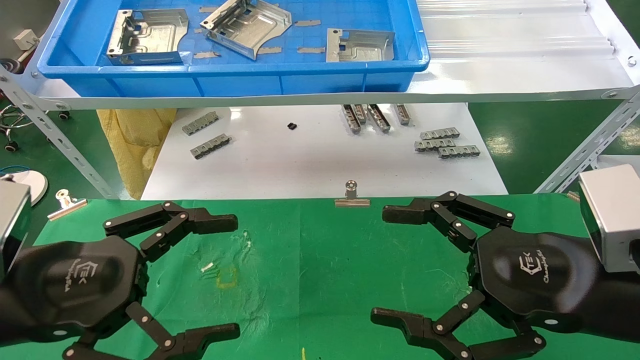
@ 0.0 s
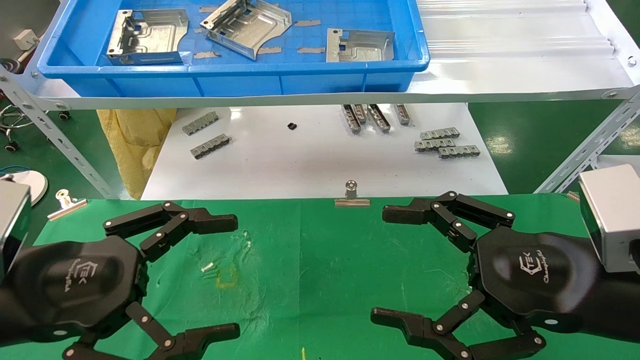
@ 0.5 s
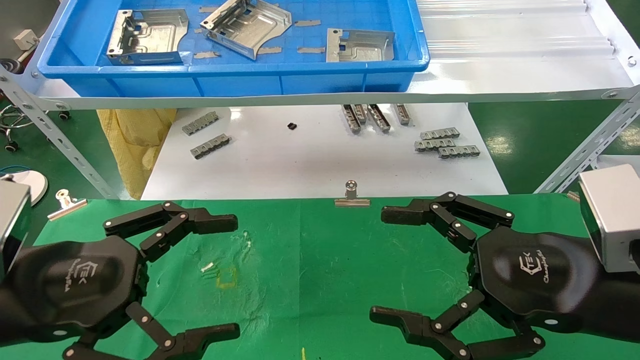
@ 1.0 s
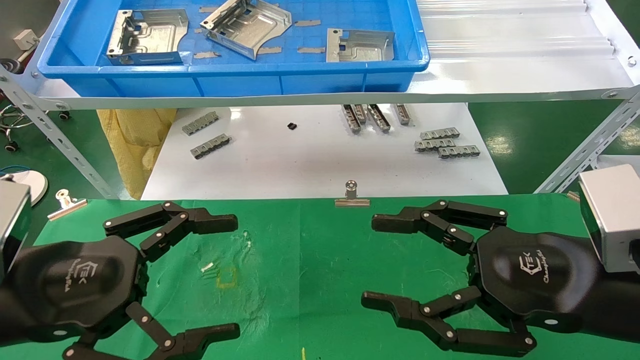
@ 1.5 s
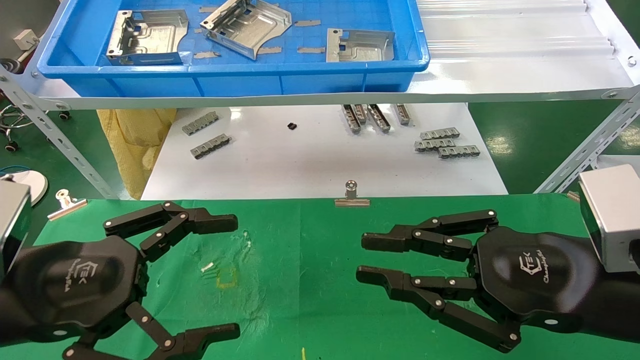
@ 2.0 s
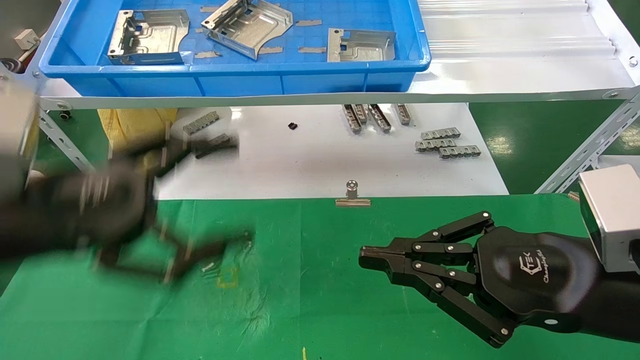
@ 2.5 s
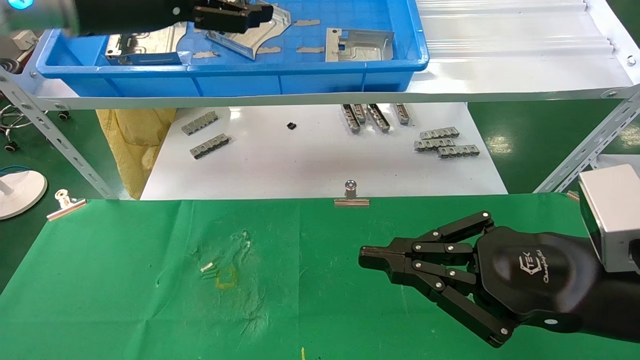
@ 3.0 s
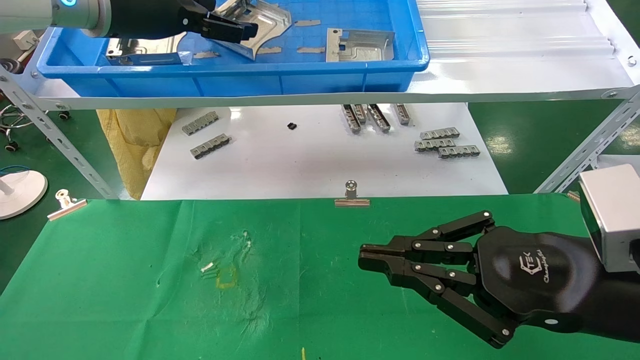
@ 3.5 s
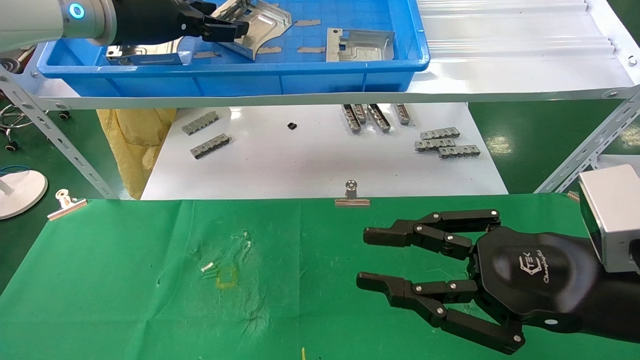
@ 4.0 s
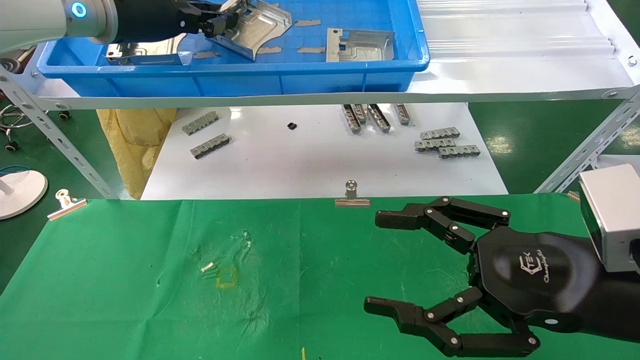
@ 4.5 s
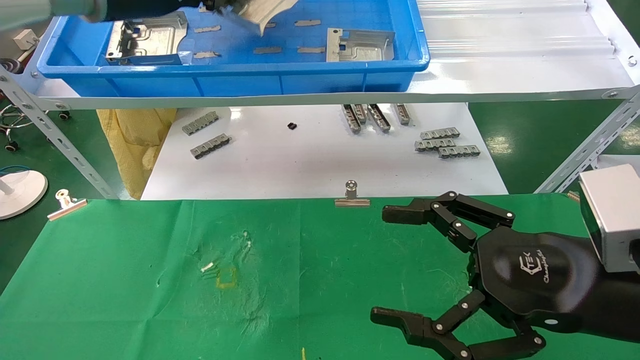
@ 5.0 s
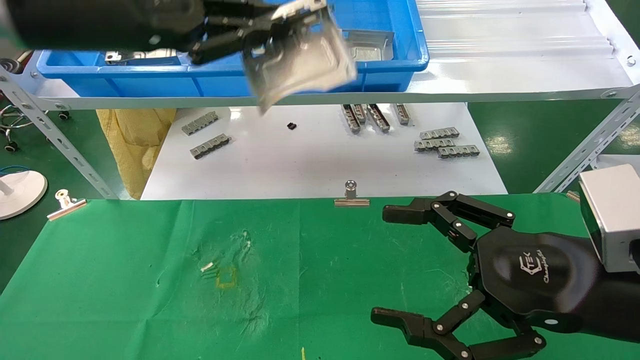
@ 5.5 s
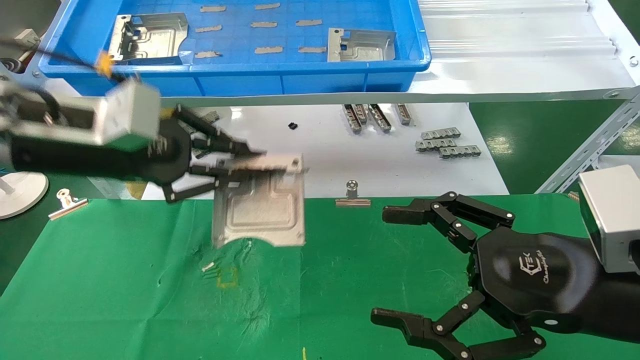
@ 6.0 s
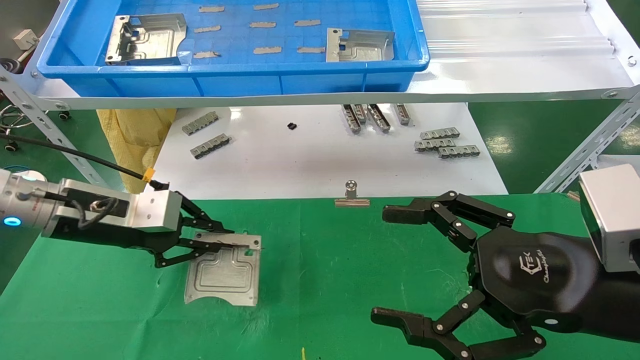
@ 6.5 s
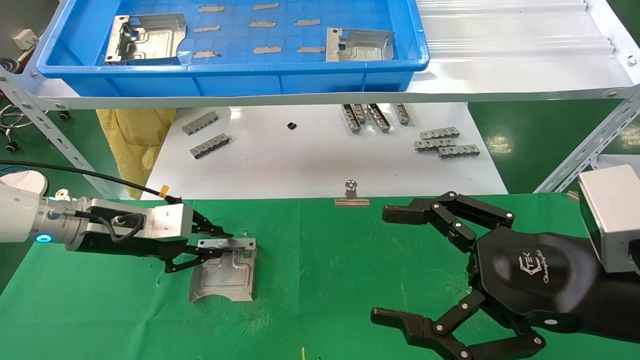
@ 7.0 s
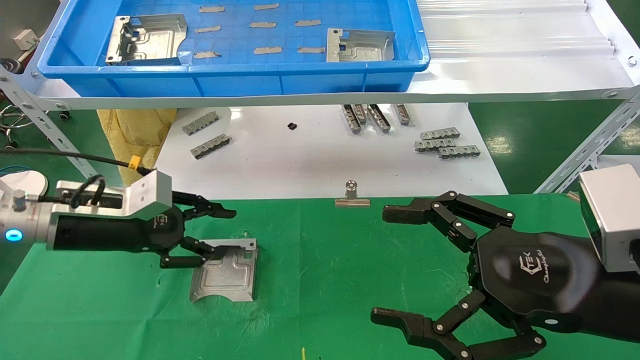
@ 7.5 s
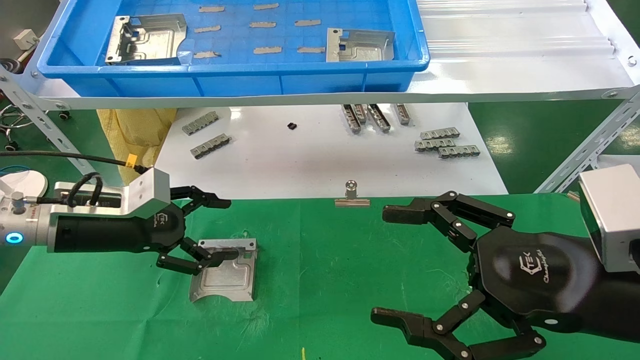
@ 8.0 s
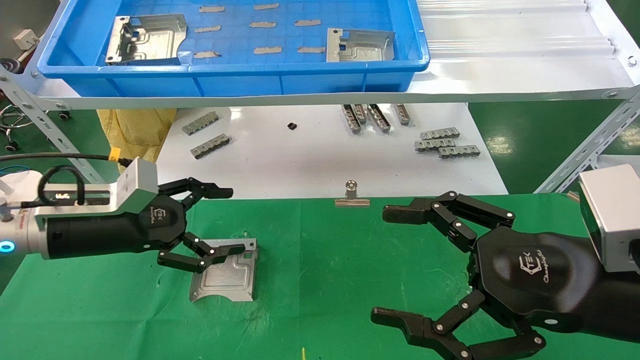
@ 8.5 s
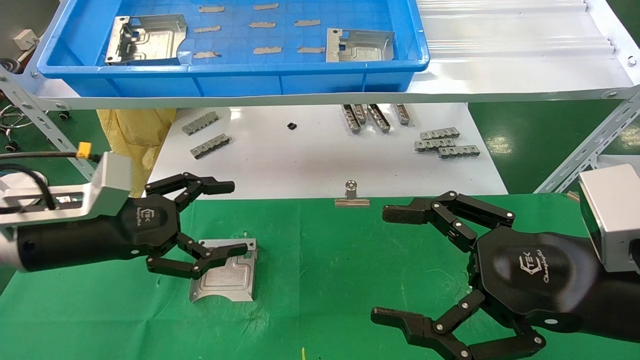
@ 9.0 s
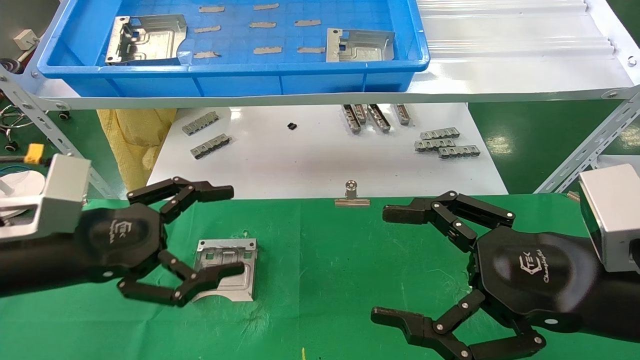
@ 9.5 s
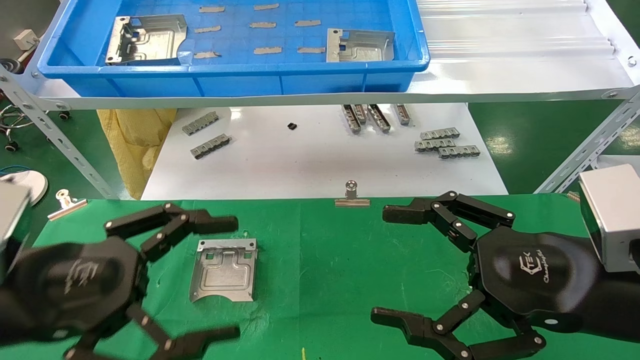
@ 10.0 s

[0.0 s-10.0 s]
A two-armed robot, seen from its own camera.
Task of the whole recording: use the mechanical arm to pick up the parts and place them on the table.
Step, 3.0 to 4.5 s: Pick up the hard drive bracket from the feeding area.
Step, 5.0 to 7.0 s: Place the hard drive bracket into the box.
0.0 to 2.0 s: The right gripper closes its fingers.
2.0 to 4.0 s: The left gripper heads upward and forward, covering roughly 30 cm.
4.0 to 6.0 s: The right gripper opens up, while the left gripper travels downward and backward by about 15 cm, and closes up.
6.0 to 8.0 s: The left gripper moves downward, about 10 cm, and opens up.
8.0 to 10.0 s: The left gripper heads backward, covering approximately 15 cm.

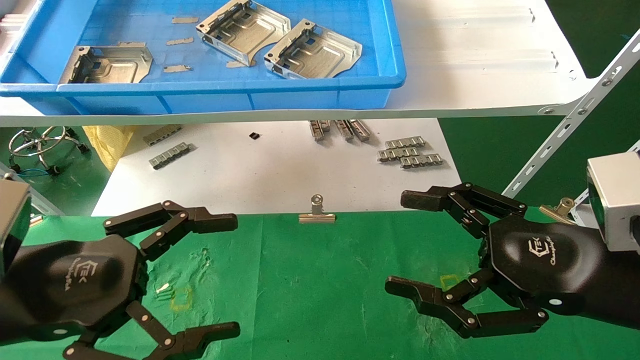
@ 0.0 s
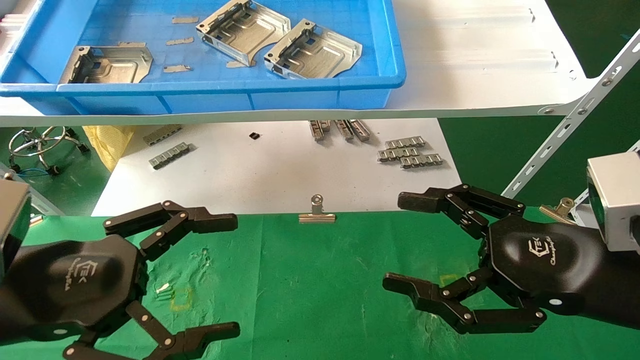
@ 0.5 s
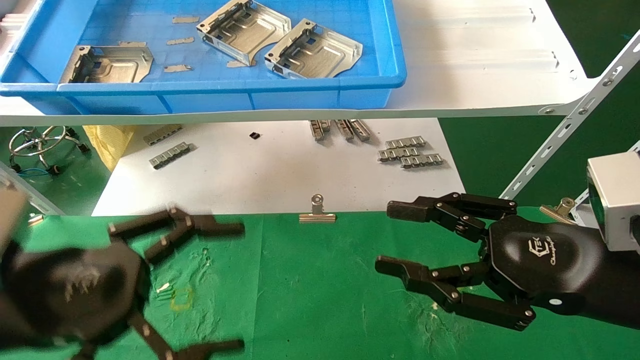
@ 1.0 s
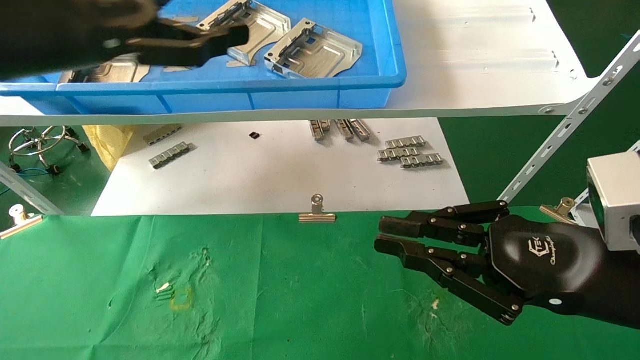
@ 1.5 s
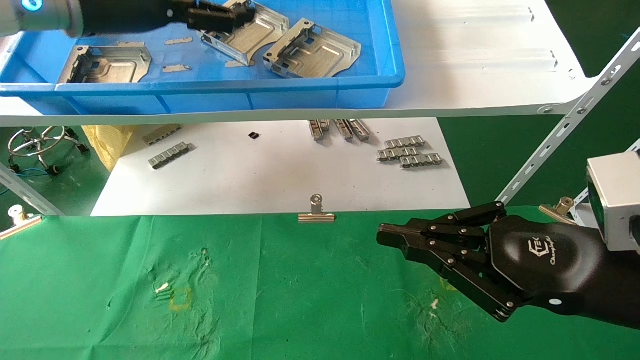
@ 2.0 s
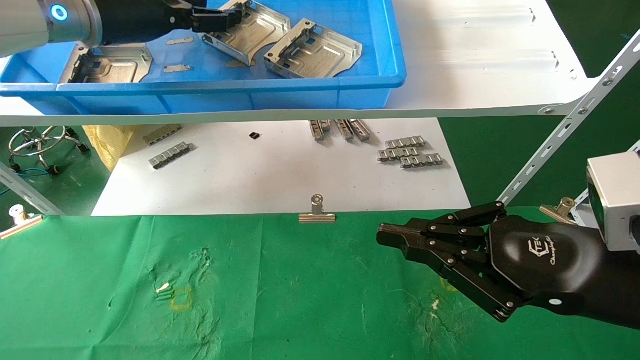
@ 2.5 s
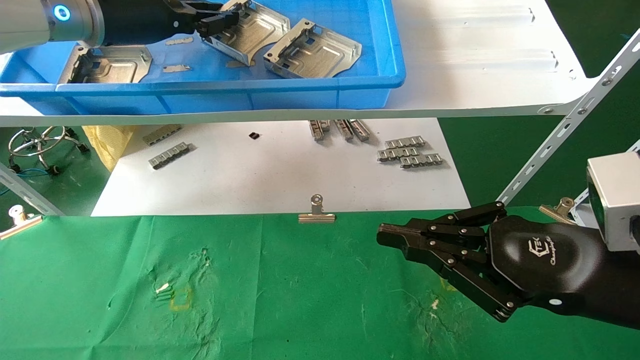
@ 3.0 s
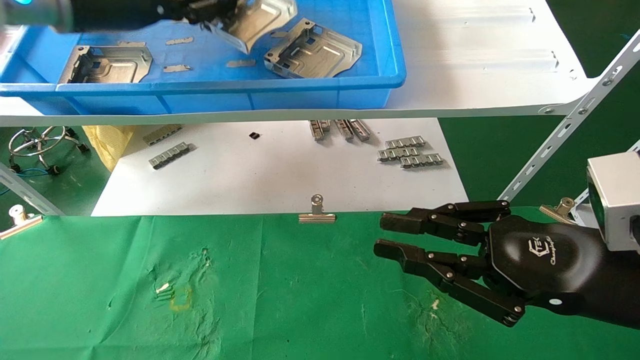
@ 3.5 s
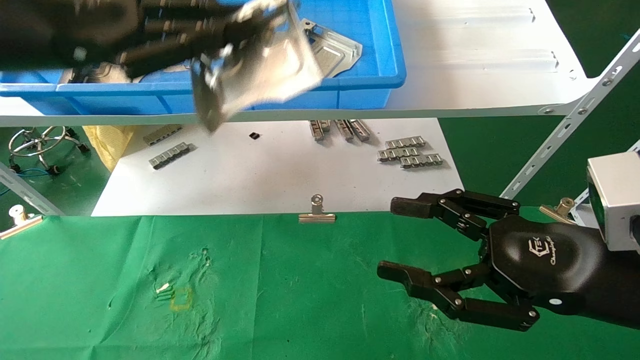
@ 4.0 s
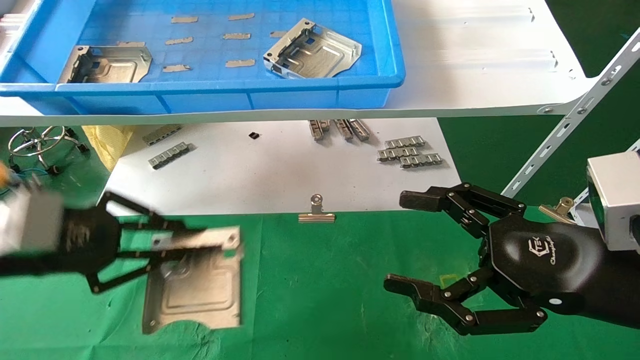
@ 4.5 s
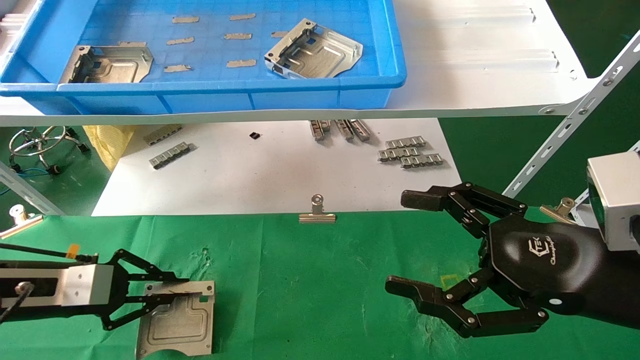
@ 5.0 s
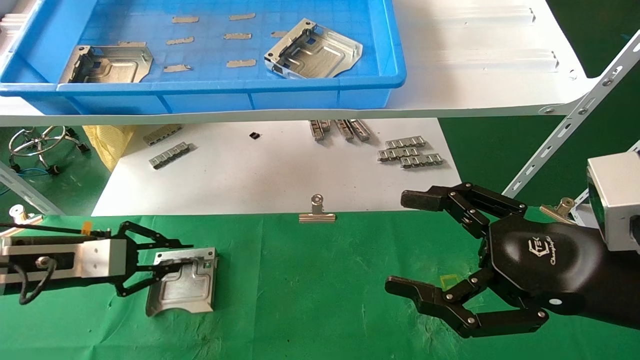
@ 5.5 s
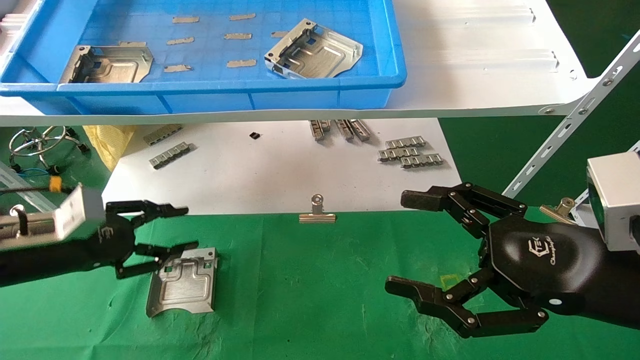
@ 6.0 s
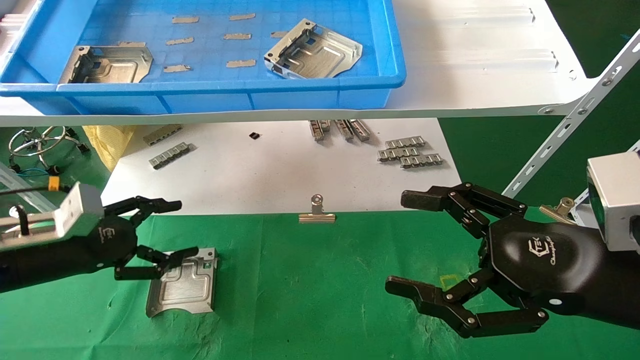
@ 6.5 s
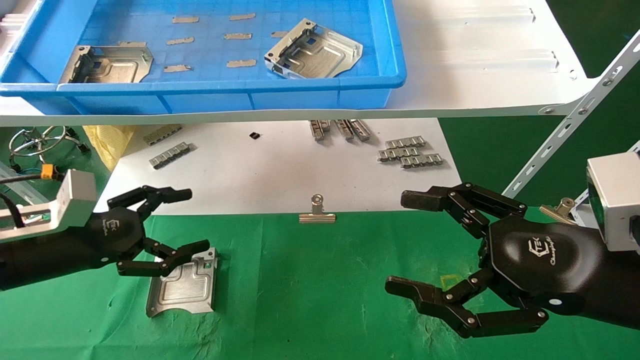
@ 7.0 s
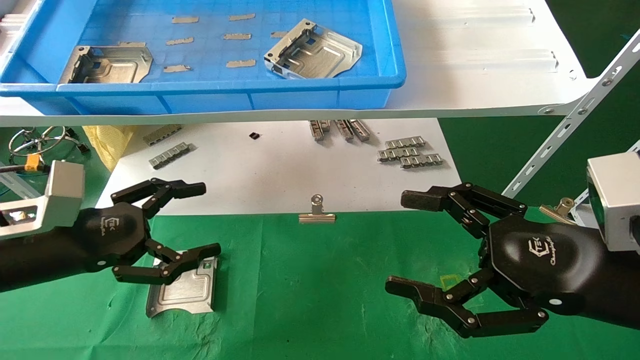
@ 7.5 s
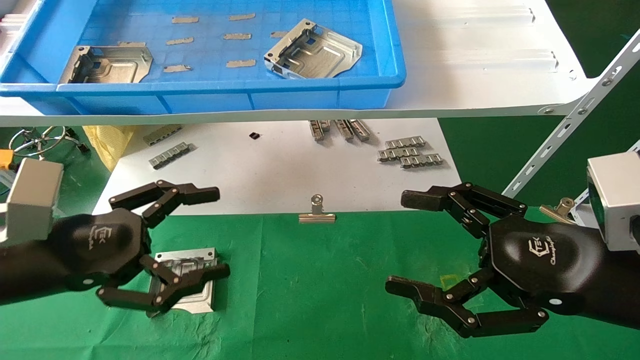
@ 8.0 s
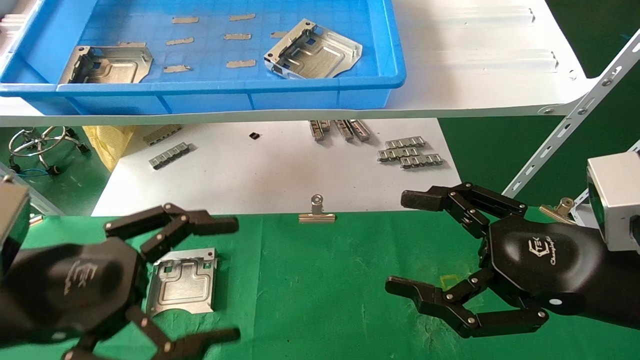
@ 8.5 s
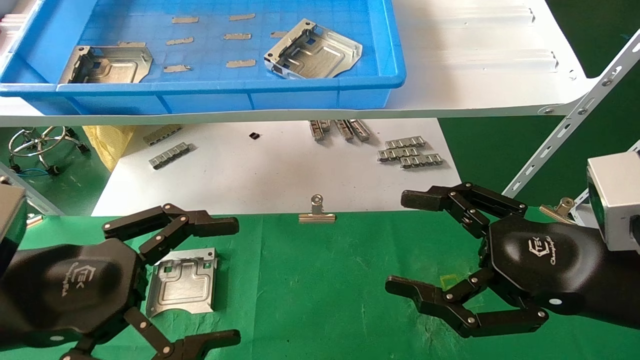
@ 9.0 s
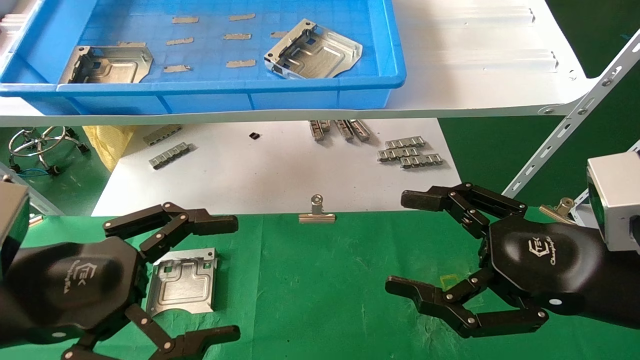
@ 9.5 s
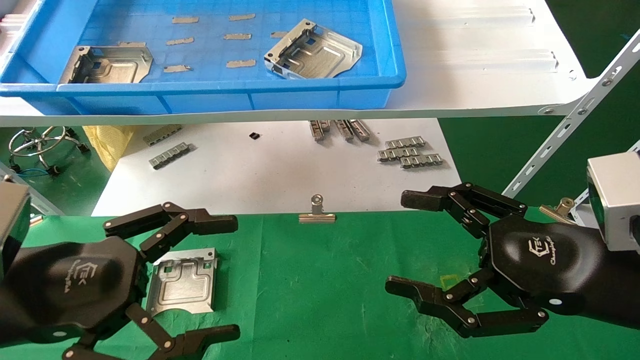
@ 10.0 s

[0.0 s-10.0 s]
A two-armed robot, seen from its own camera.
Task of the whole recording: use the mechanical arm to pick up the parts and place them on the table.
Step, 1.5 to 3.0 s: Pick up the hard drive bracket from the feeding area.
Step, 3.5 to 5.0 s: Place the hard drive bracket into the box.
0.0 to 2.0 s: The right gripper closes, while the left gripper is displaced upward and forward by about 30 cm.
2.0 to 4.0 s: The right gripper opens its fingers; the left gripper goes about 10 cm backward, and closes its fingers.
4.0 to 6.0 s: The left gripper heads downward, covering about 25 cm, and opens its fingers. Meanwhile the right gripper opens its fingers.
6.0 to 8.0 s: The left gripper heads backward and to the right, covering some 10 cm, and opens its fingers.
8.0 to 10.0 s: The left gripper travels backward by roughly 5 cm.
